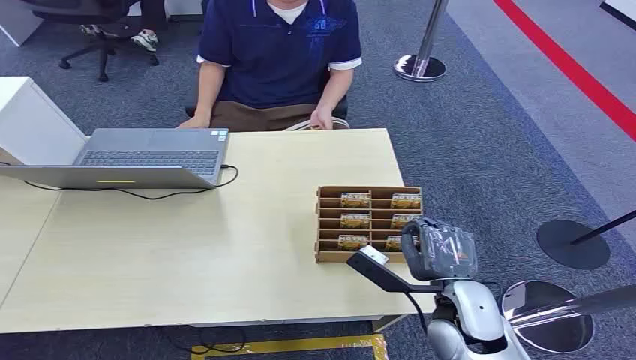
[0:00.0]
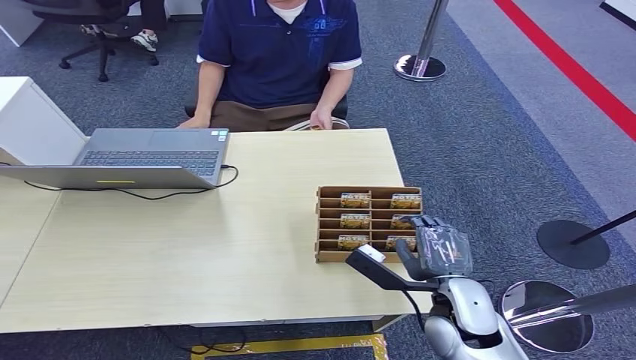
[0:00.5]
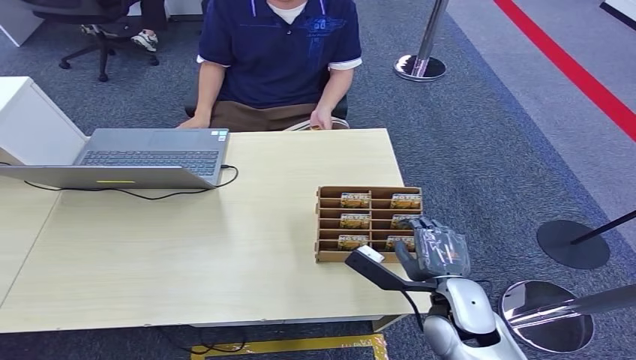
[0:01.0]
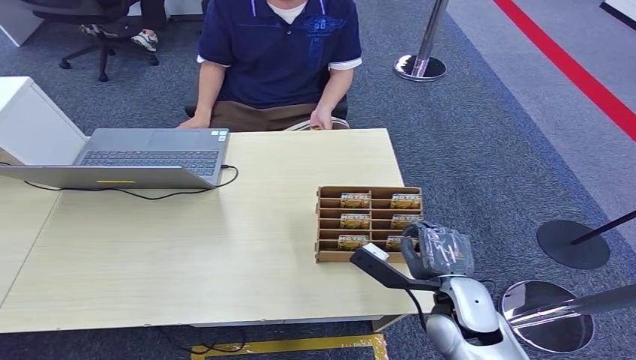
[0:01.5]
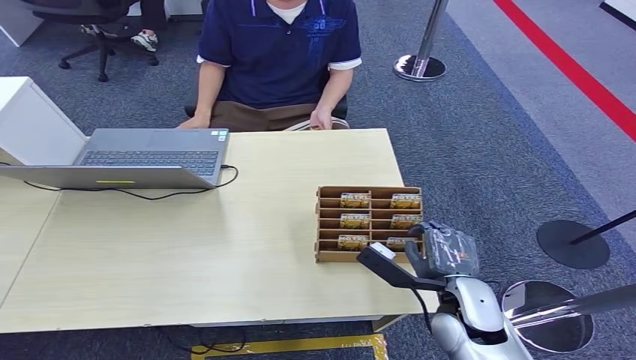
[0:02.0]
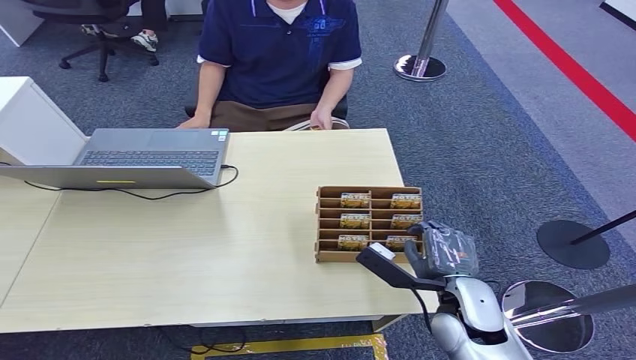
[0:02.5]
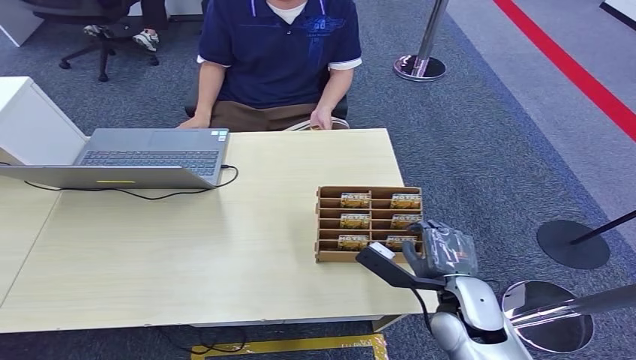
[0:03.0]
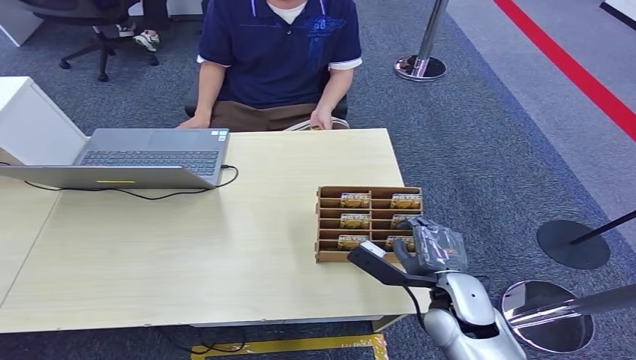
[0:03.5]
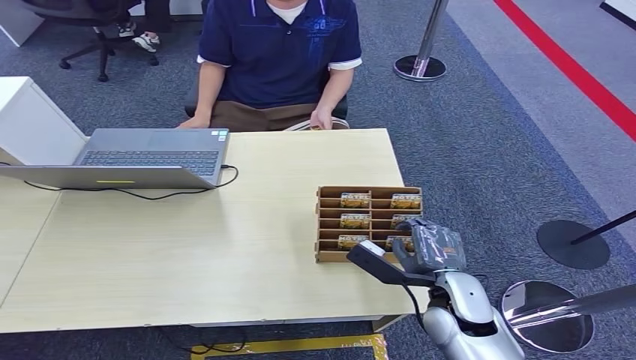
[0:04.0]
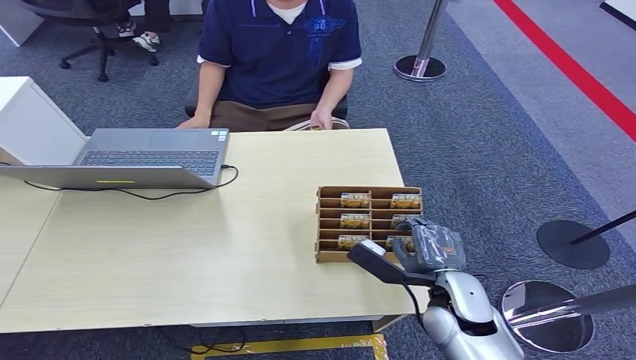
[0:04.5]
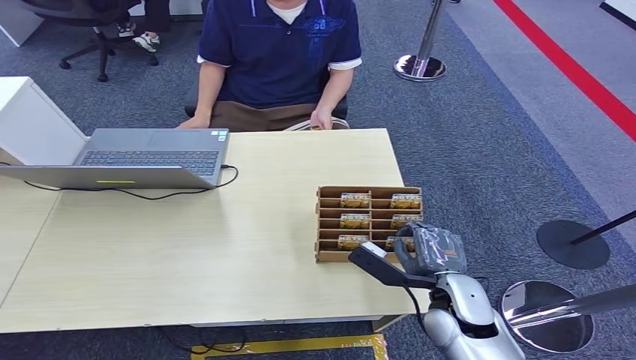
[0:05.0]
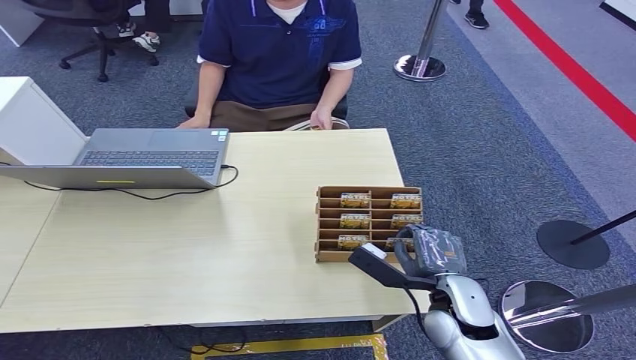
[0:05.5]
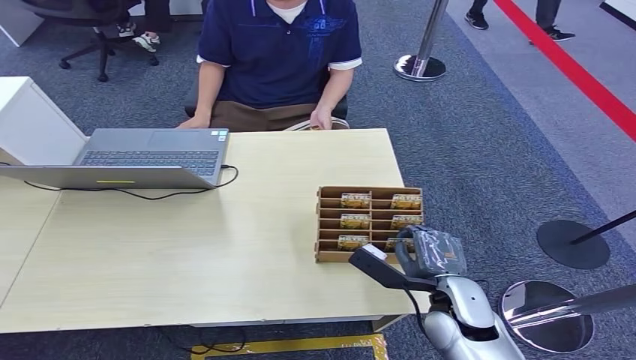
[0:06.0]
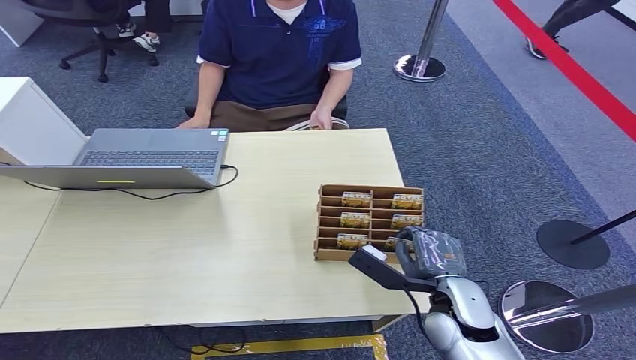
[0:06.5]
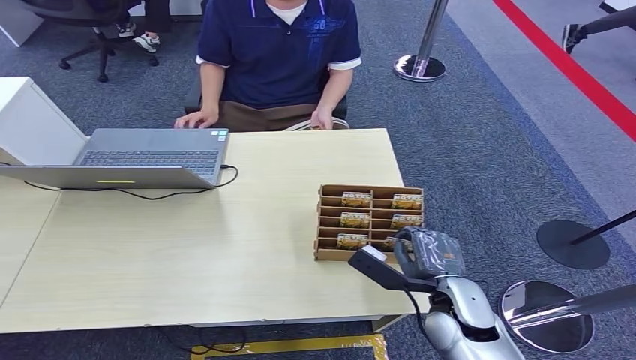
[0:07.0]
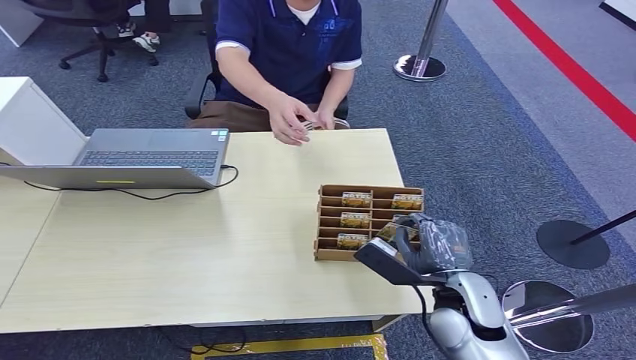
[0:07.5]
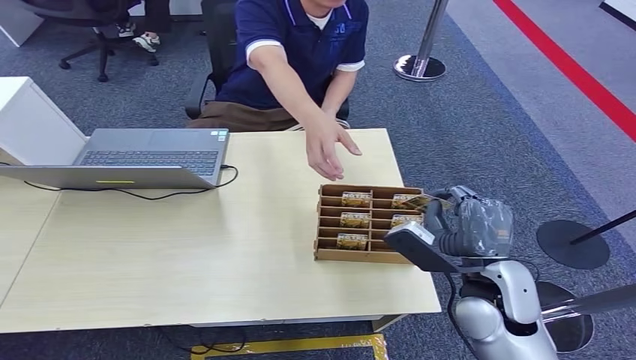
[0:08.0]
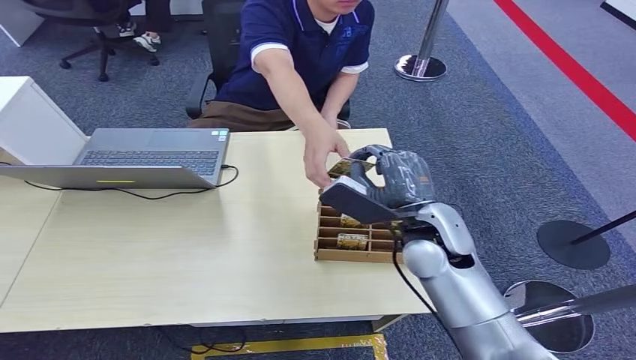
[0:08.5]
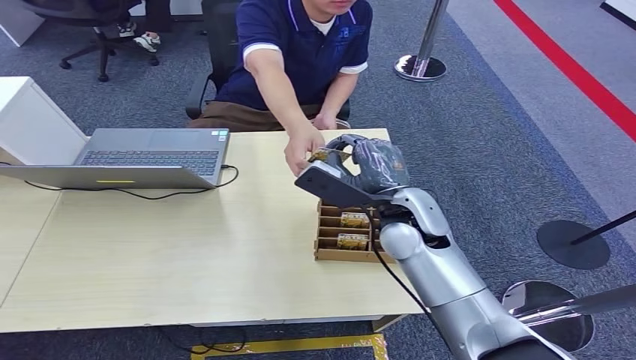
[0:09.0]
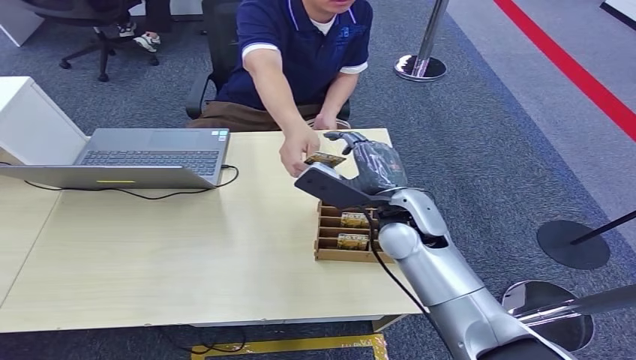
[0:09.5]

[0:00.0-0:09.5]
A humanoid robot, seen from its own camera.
Step, 0:00.0 to 0:06.0: Pick up the key card from the card box.
Step, 0:06.5 to 0:09.5: Hand the key card to the target.
0:02.0 to 0:04.0: There are only small adjustments of the hands.
0:04.0 to 0:05.5: Both hands stay put.
0:05.5 to 0:07.5: The hands stay close to where they were, moving slightly.
0:07.5 to 0:09.5: The right hand shifts about 15 cm forward, upward and to the left.

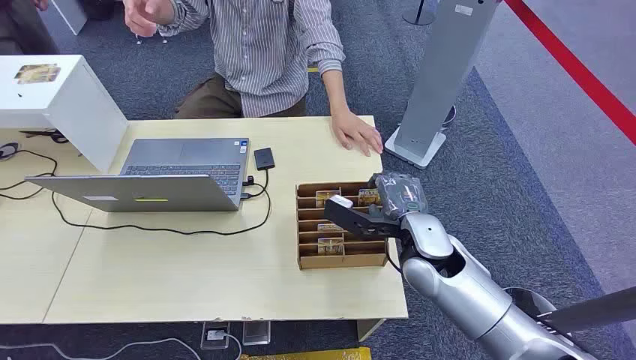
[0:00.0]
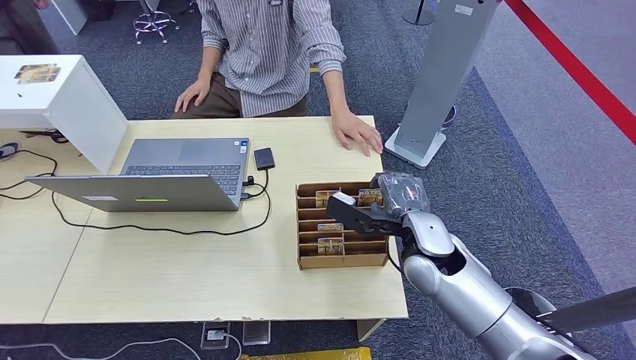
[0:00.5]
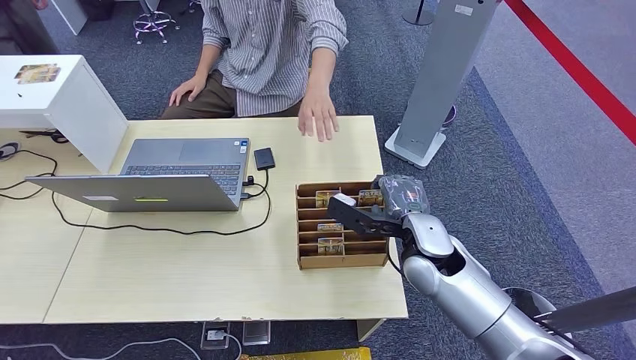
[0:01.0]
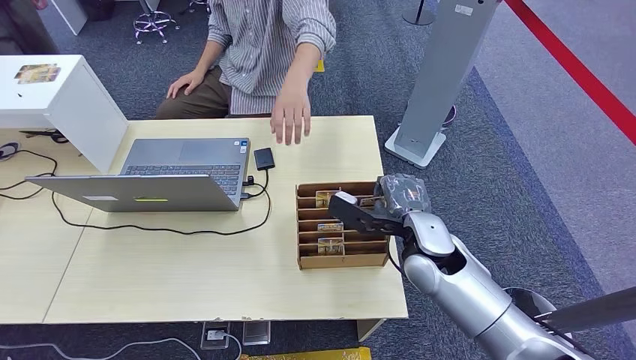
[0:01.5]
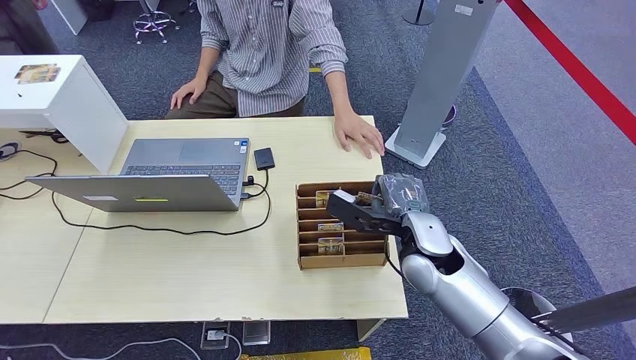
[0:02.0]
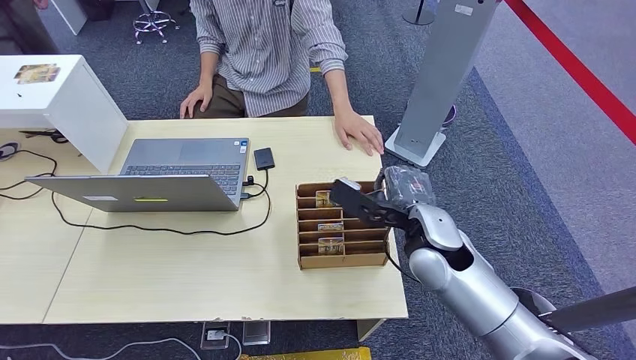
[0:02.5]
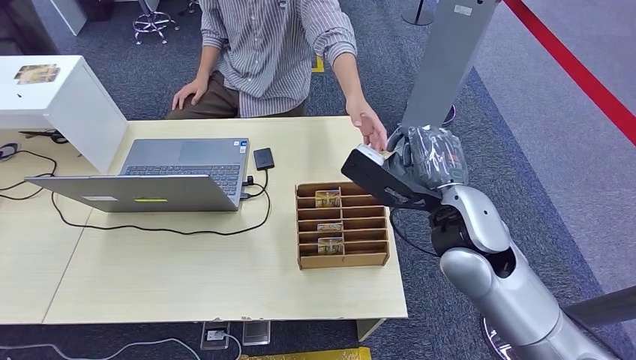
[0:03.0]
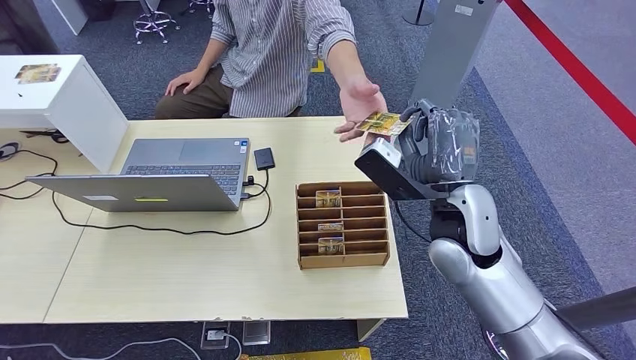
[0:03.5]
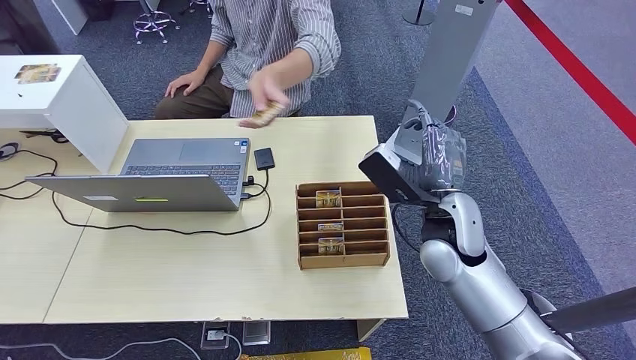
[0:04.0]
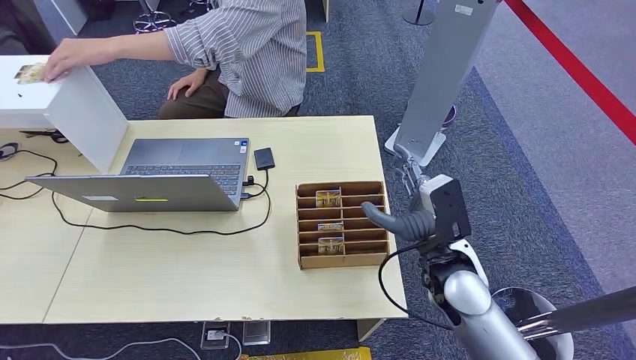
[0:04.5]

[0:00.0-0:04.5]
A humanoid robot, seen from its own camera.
Step, 0:00.0 to 0:02.5: Pick up the key card from the card box.
Step, 0:04.0 to 0:04.5: Hand the key card to the target.
0:02.0 to 0:04.5: The right hand goes upward and returns, approximately 10 cm each way.
